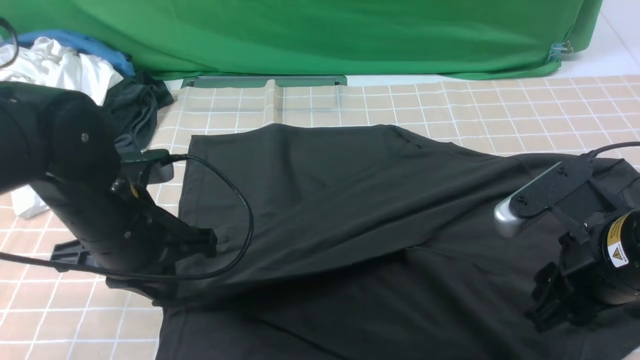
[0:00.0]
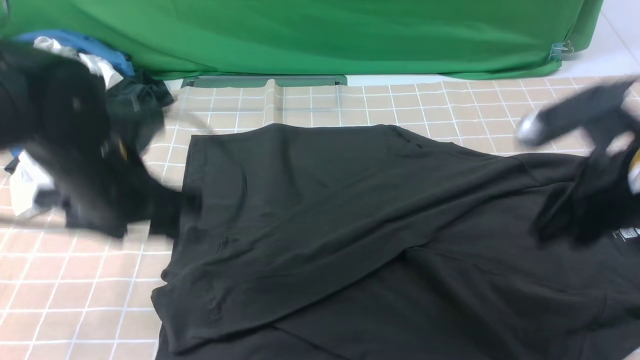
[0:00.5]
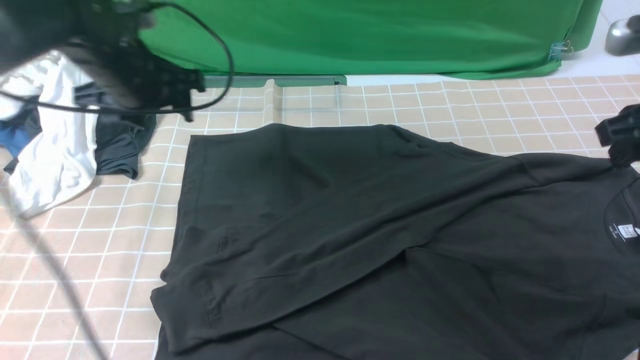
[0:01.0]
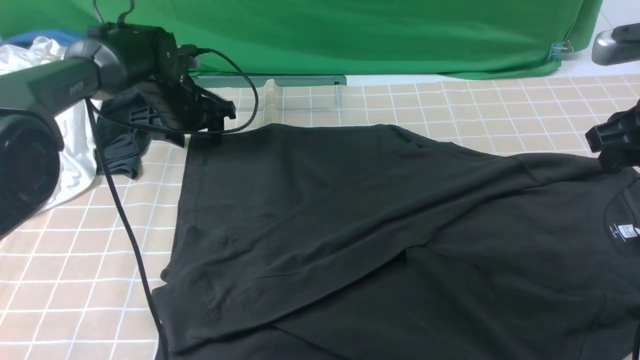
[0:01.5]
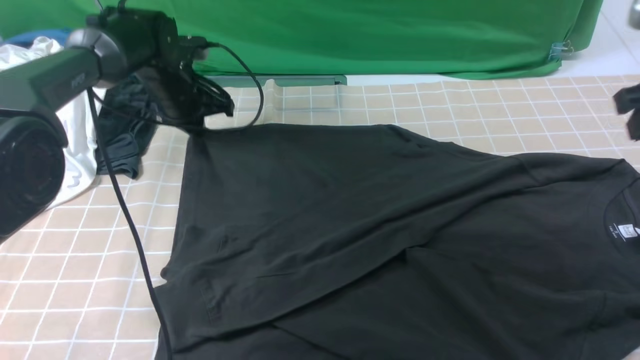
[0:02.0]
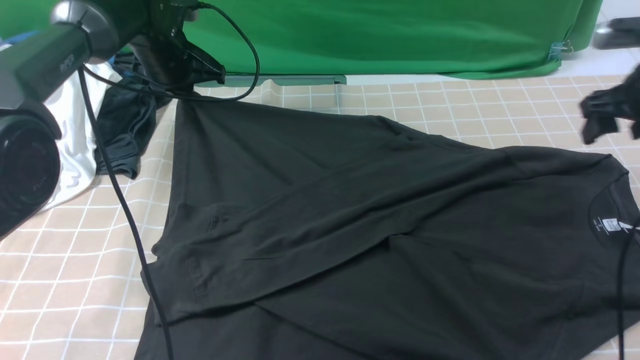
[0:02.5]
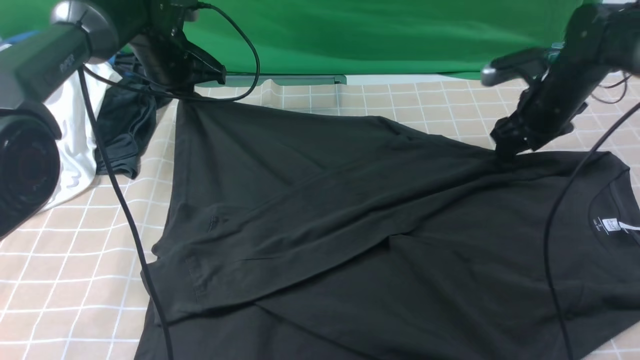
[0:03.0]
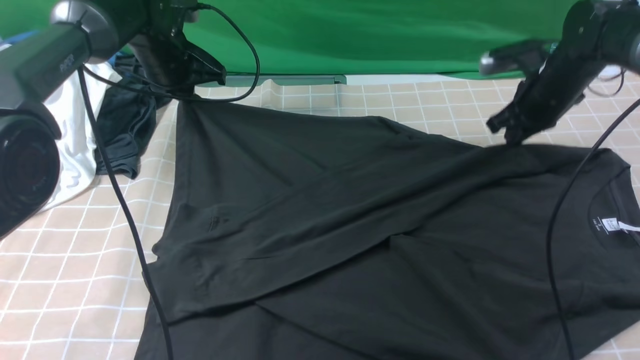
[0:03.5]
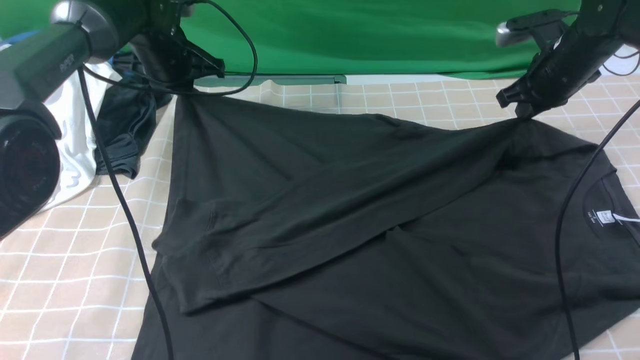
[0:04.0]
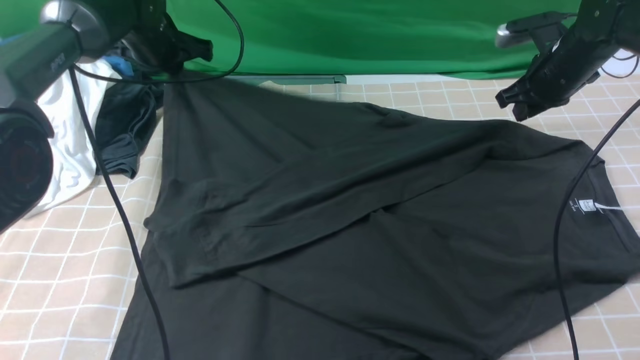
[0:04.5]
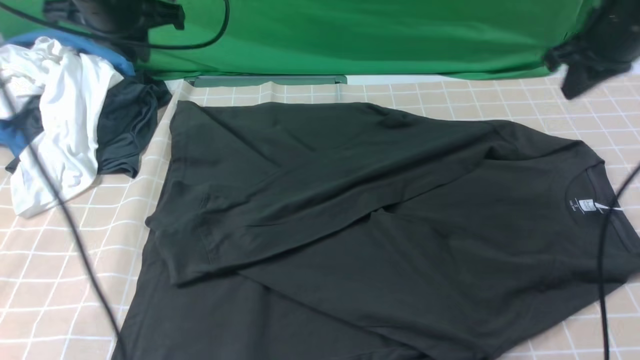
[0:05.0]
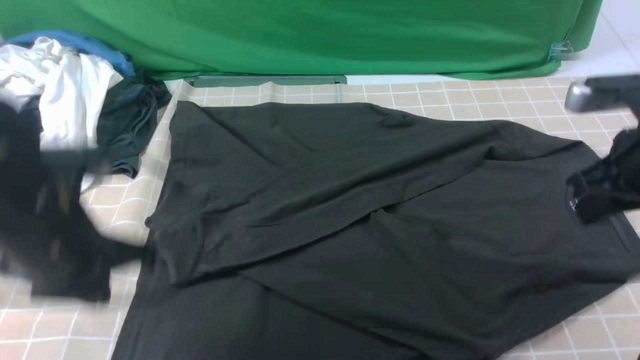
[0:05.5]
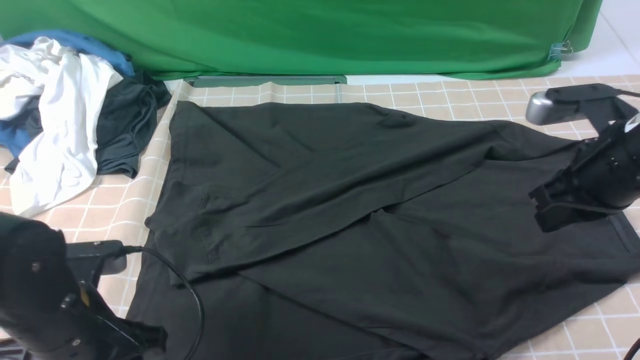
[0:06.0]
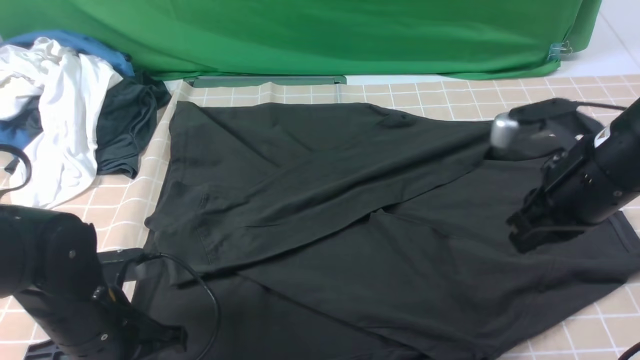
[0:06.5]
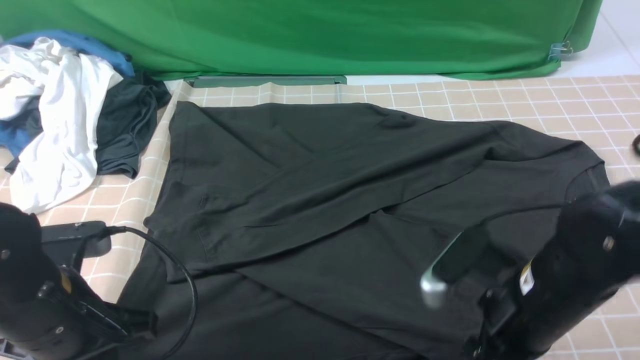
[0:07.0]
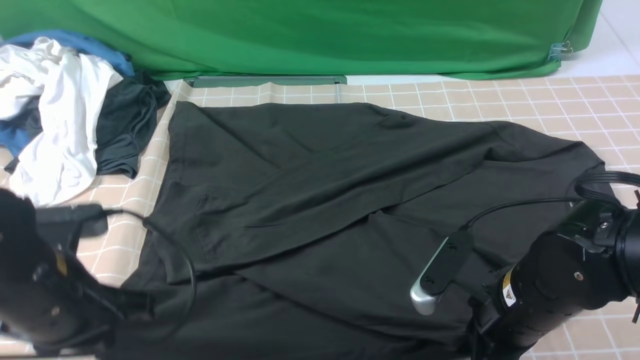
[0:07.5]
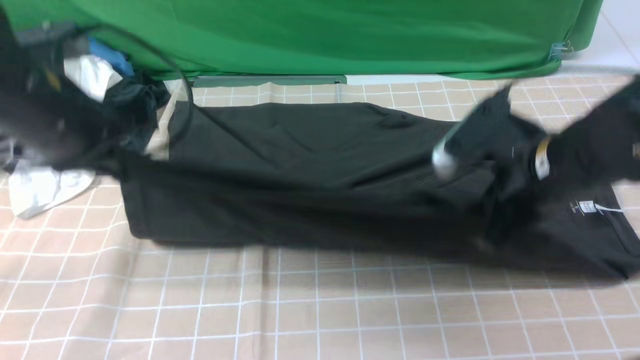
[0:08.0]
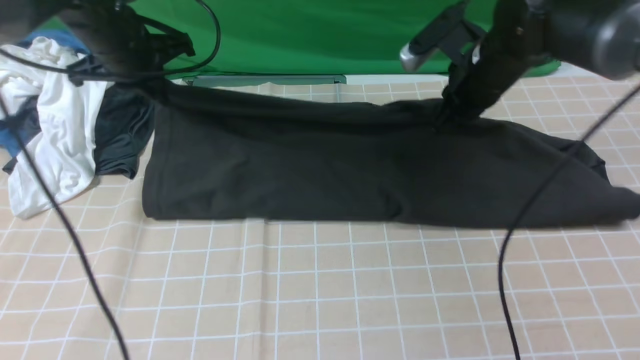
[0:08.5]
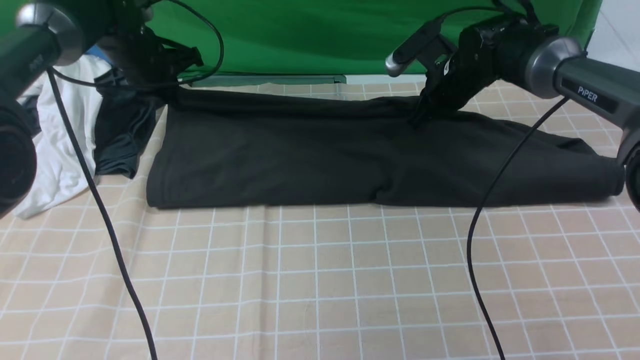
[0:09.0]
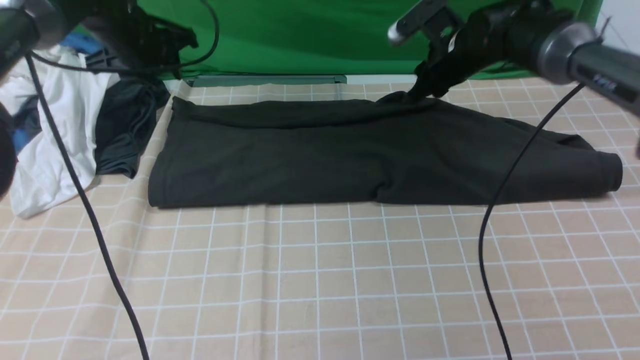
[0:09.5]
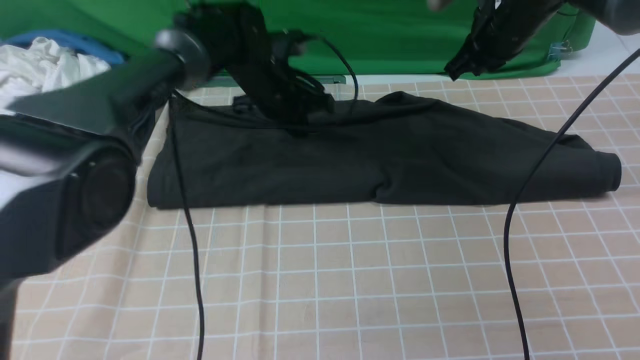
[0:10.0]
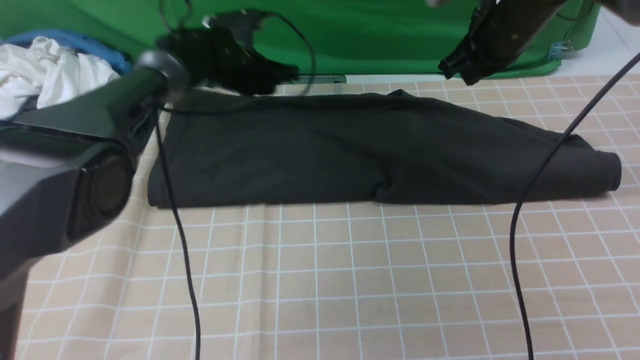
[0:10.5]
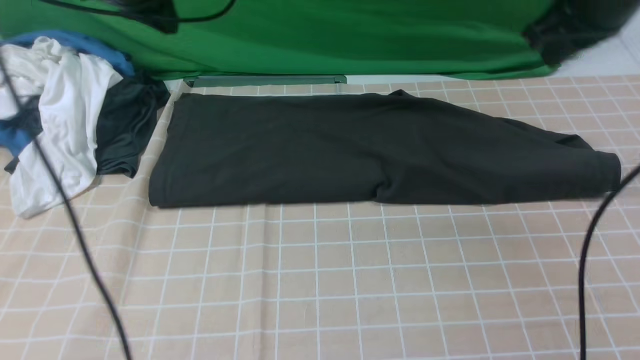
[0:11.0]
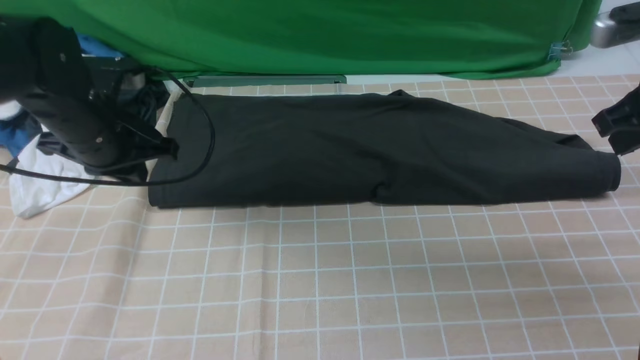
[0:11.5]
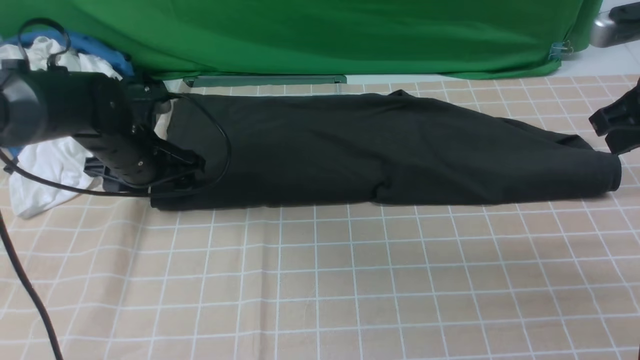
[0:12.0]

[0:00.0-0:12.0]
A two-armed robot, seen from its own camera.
Step, 0:00.5 to 0:07.0: use both arms simultaneously to clamp the lower edge of the clothing fabric.
Step, 0:07.5 to 0:09.0: use both arms to drag the lower edge of the fabric forward and fold it over the upper edge.
0:00.0 to 0:02.0: The right gripper heads forward, to the right and upward, covering about 20 cm. The left gripper travels forward by some 25 cm, and opens and closes again.
0:02.0 to 0:04.0: The right gripper heads forward and downward, covering some 20 cm, and closes.
0:04.0 to 0:06.0: The left gripper is displaced backward by approximately 35 cm, and opens. Meanwhile the right gripper shifts about 20 cm backward, and opens, then closes again.
0:06.0 to 0:08.0: The right gripper heads to the left, covering some 10 cm, and opens and closes again; the left gripper travels upward and forward by some 20 cm, and closes up.
0:08.0 to 0:10.0: The left gripper is displaced forward, to the right and downward by some 25 cm, and opens, then closes again; the right gripper travels forward by roughly 20 cm.
0:10.0 to 0:12.0: The left gripper is displaced to the left and backward by approximately 20 cm, and opens its fingers, while the right gripper travels backward and to the right by some 20 cm.

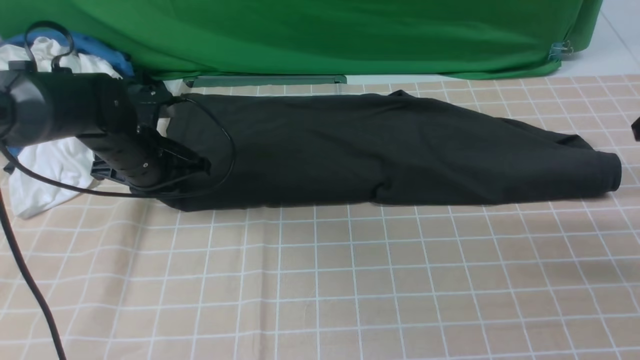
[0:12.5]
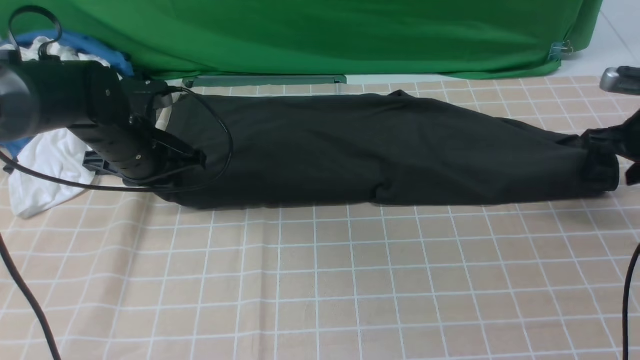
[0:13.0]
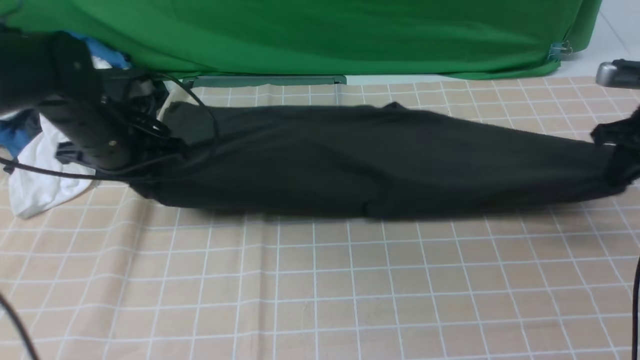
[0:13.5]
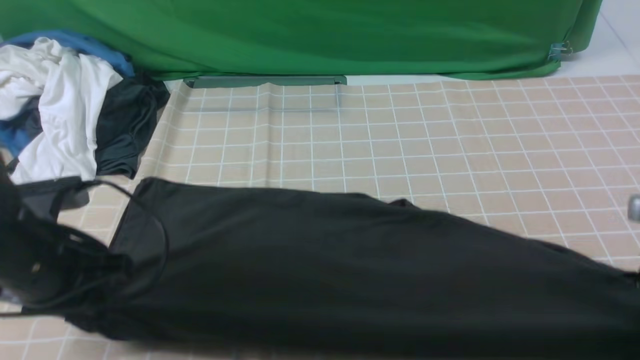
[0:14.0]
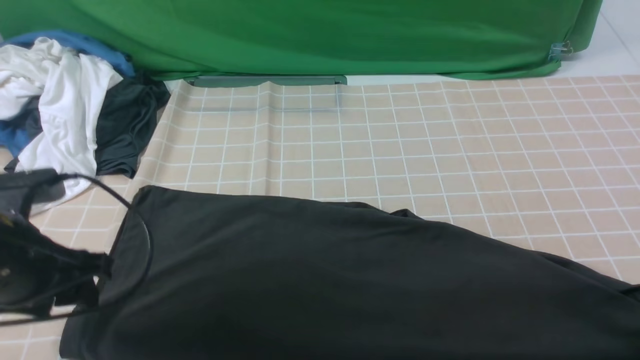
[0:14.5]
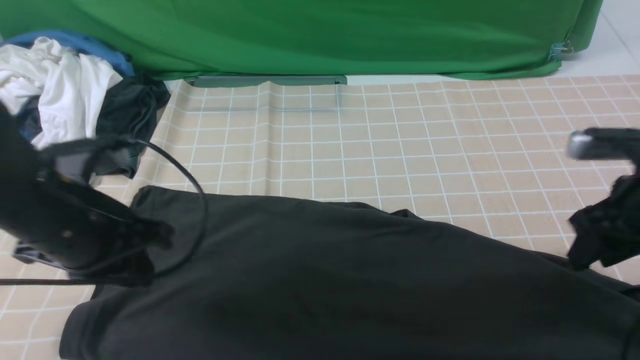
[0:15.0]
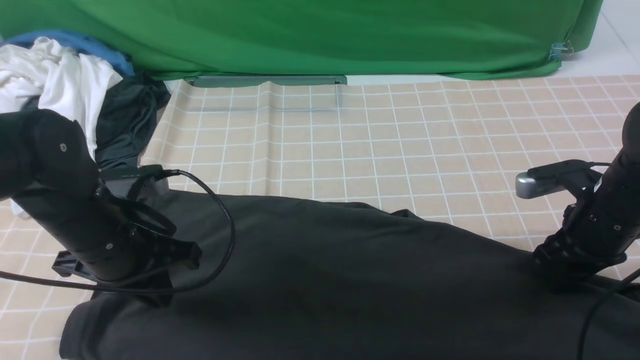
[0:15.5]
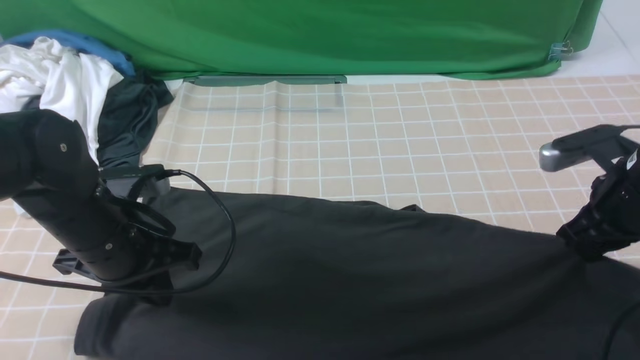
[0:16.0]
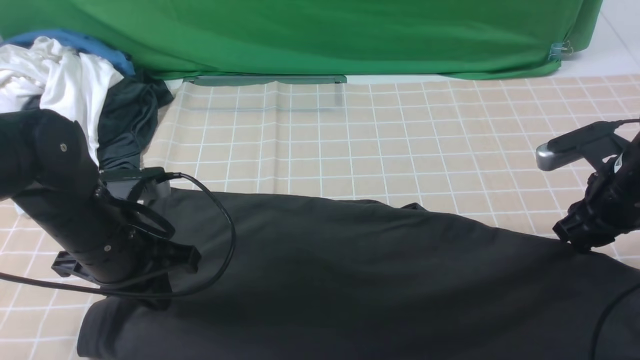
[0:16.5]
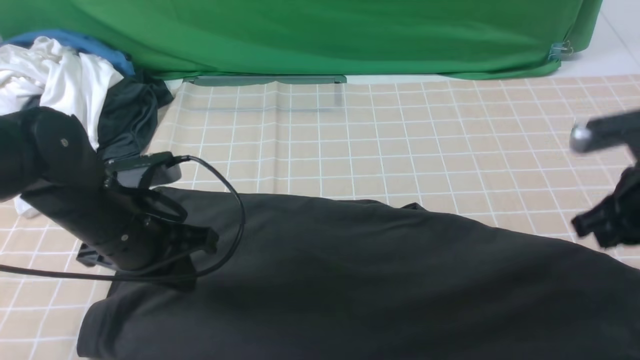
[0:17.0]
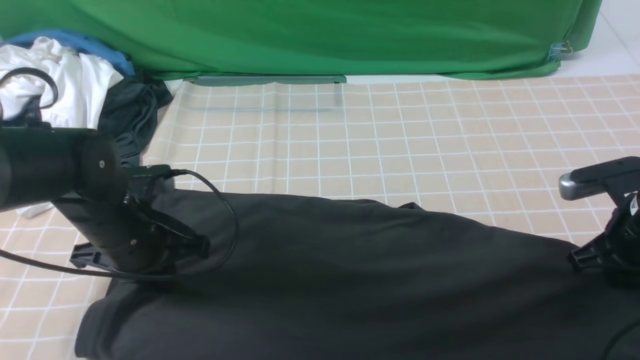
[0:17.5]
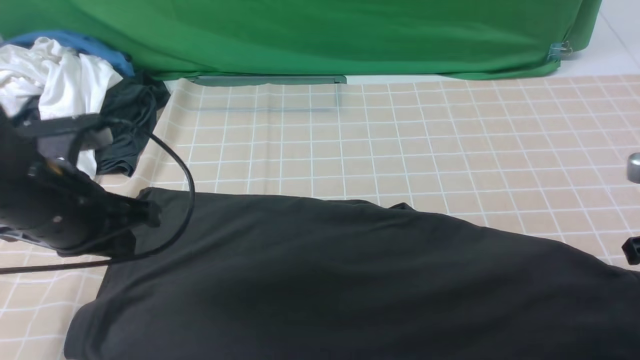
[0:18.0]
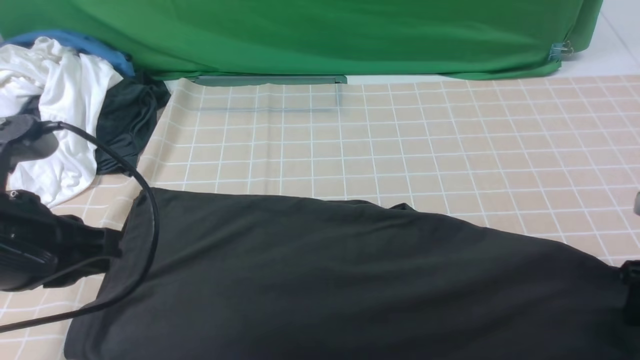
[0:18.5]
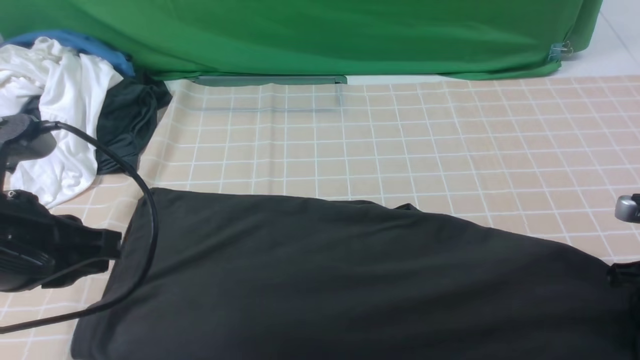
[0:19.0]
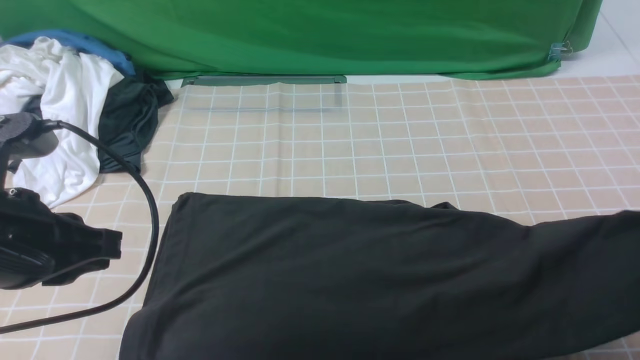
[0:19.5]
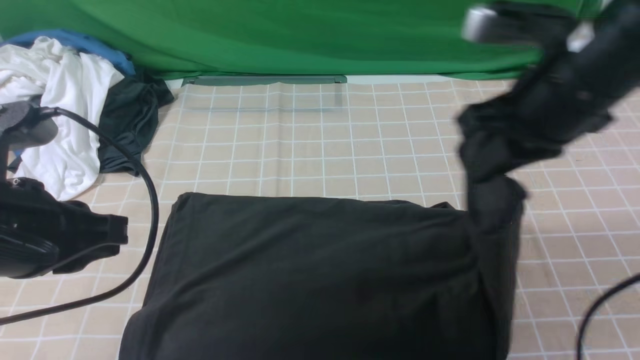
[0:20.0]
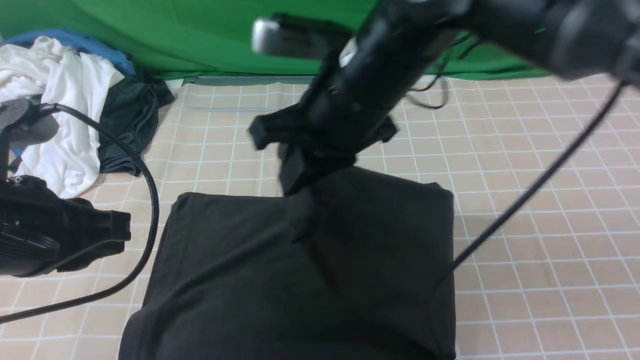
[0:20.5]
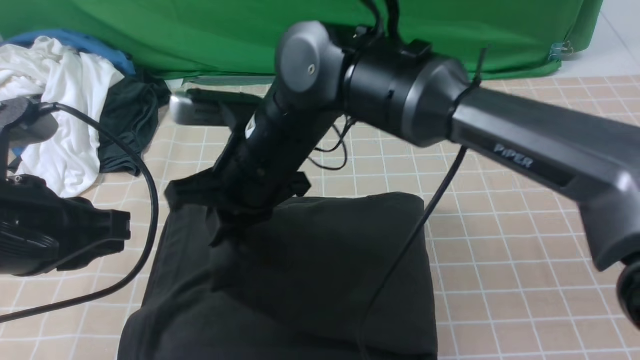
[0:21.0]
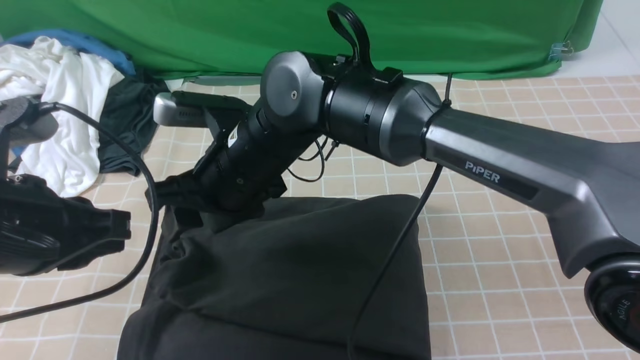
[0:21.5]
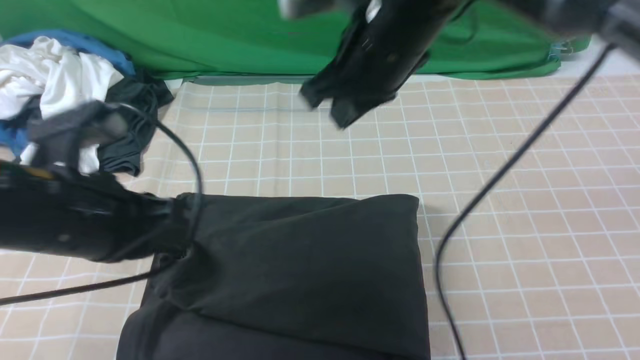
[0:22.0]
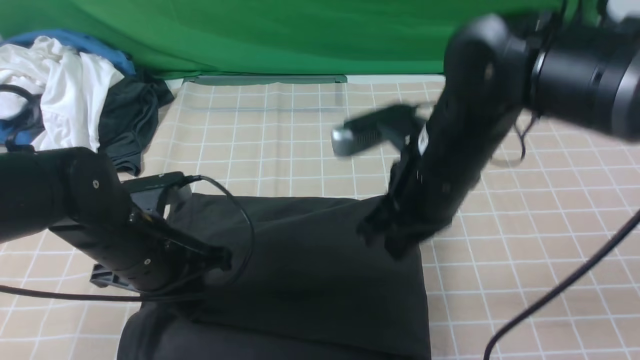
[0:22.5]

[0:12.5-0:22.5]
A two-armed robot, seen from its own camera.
Step, 0:12.5 to 0:19.0: use the right arm to clamp the right edge of the fabric.
Step, 0:19.5 to 0:21.5: use the right arm to drag the right edge of the fabric to the left and folds it over the left edge.
0:12.5 to 0:14.5: The right gripper travels backward and downward by roughly 15 cm, and closes and opens again, while the left gripper is displaced backward and upward by approximately 20 cm, and opens up.
0:14.5 to 0:16.5: The left gripper moves to the right, about 5 cm, and closes; the right gripper travels forward and to the left by about 10 cm.
0:16.5 to 0:18.5: The left gripper shifts about 10 cm upward and backward. The right gripper shifts approximately 10 cm backward and to the right, and opens.
0:18.5 to 0:20.5: The right gripper is displaced to the left and upward by about 35 cm, and closes its fingers.
0:20.5 to 0:22.5: The left gripper is displaced downward and forward by approximately 15 cm. Meanwhile the right gripper moves to the right and downward, approximately 10 cm, and opens, then closes again.
